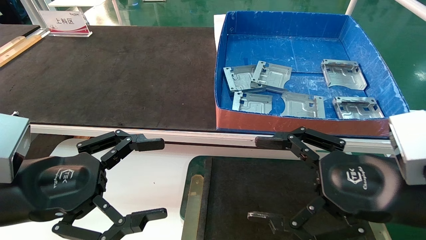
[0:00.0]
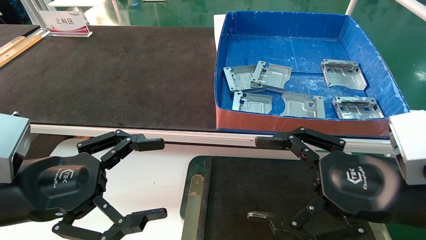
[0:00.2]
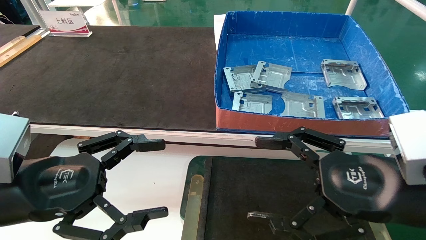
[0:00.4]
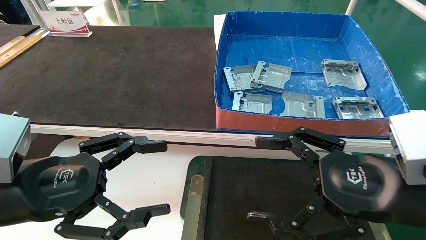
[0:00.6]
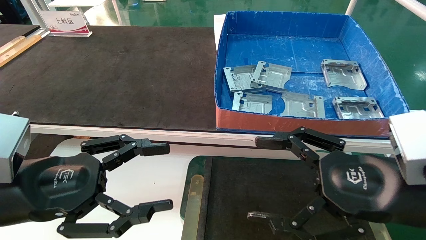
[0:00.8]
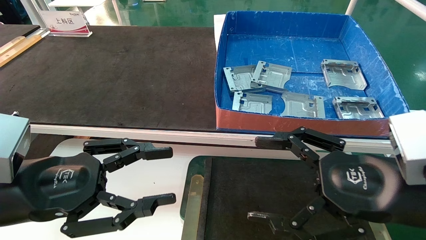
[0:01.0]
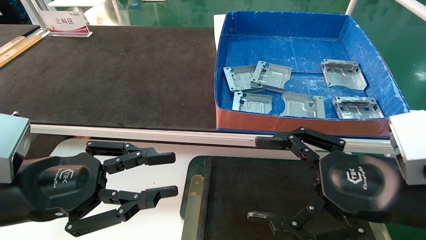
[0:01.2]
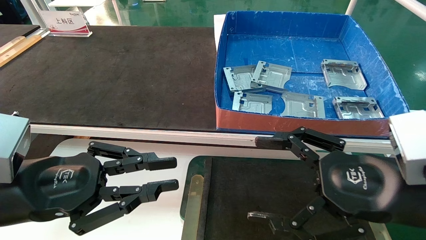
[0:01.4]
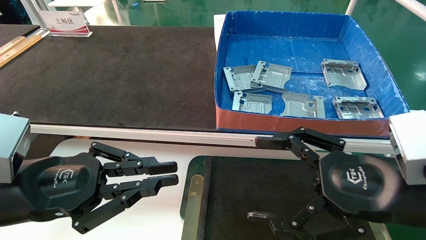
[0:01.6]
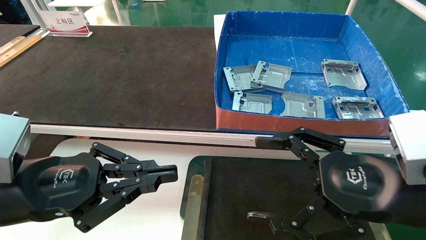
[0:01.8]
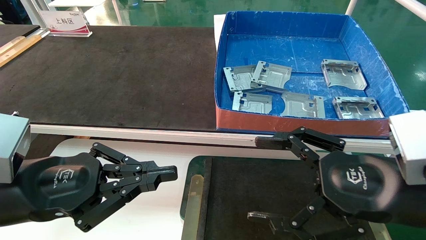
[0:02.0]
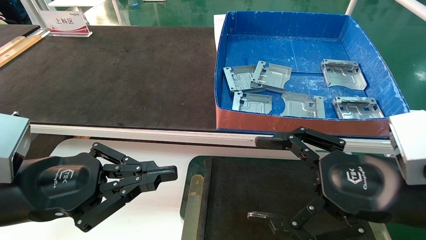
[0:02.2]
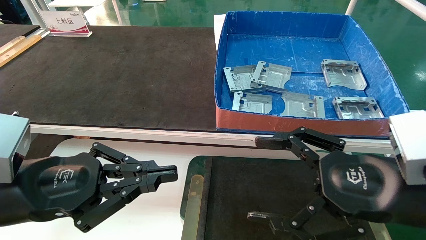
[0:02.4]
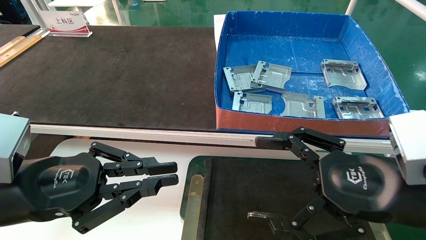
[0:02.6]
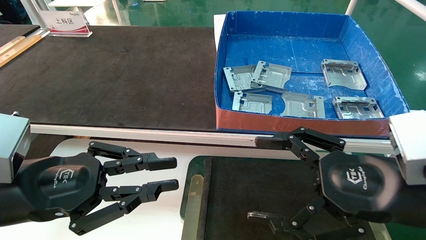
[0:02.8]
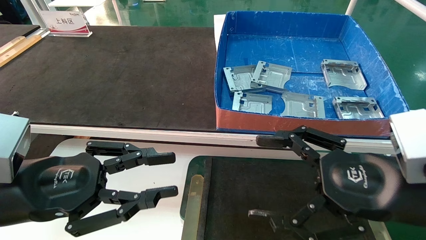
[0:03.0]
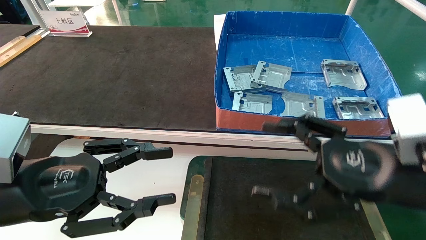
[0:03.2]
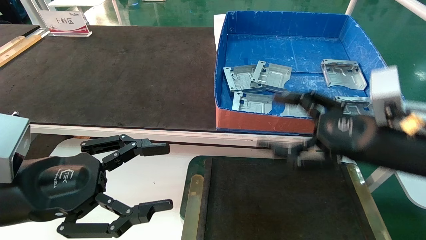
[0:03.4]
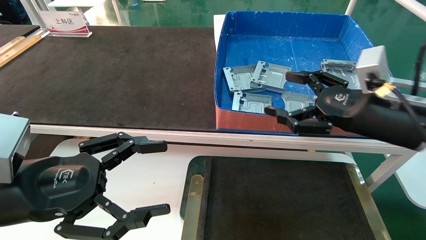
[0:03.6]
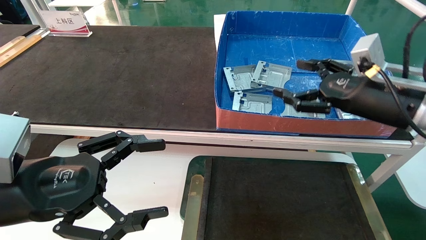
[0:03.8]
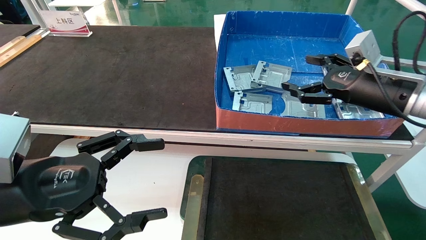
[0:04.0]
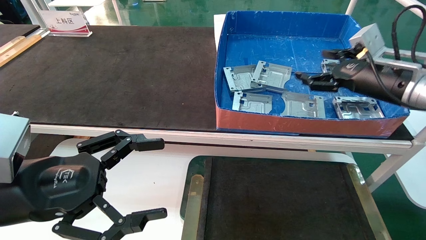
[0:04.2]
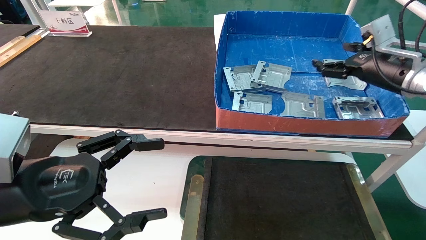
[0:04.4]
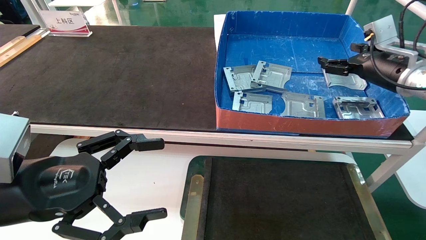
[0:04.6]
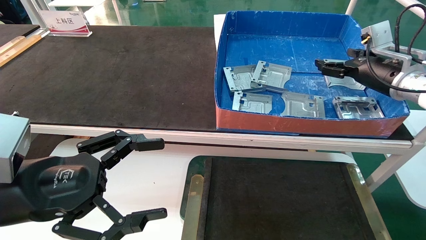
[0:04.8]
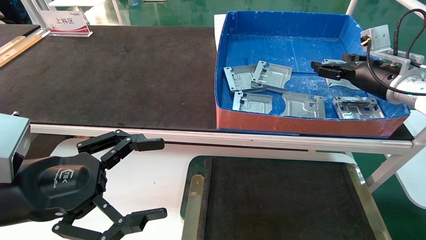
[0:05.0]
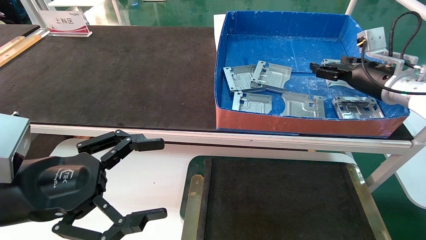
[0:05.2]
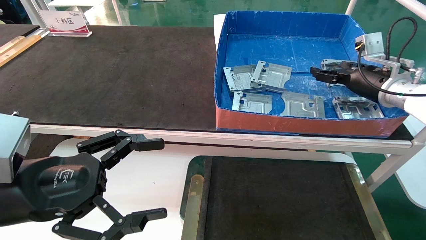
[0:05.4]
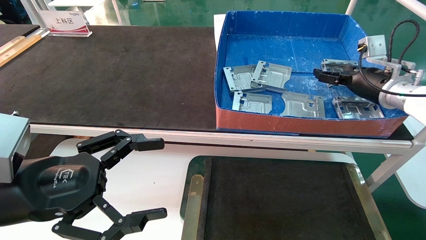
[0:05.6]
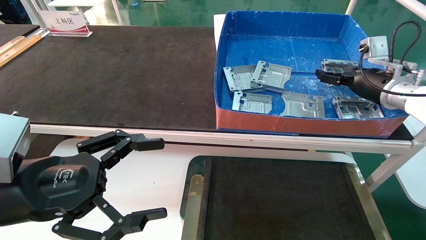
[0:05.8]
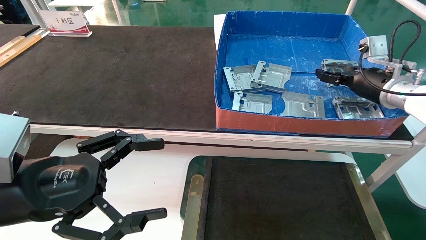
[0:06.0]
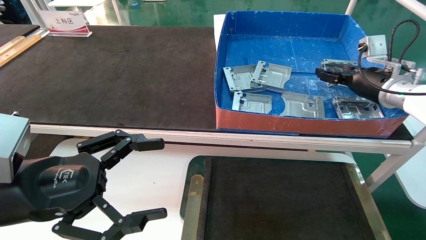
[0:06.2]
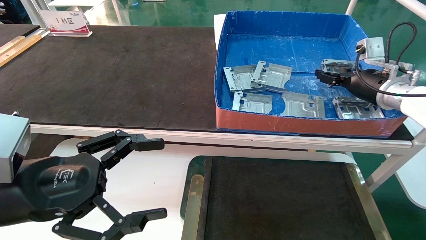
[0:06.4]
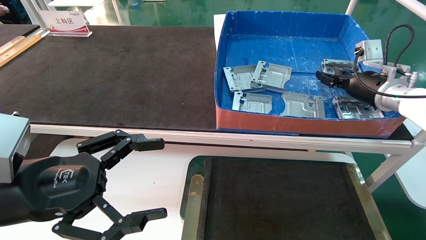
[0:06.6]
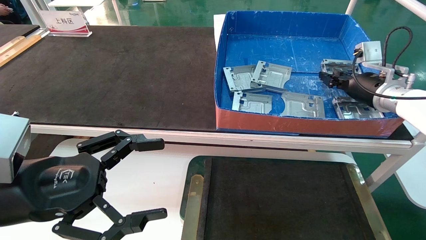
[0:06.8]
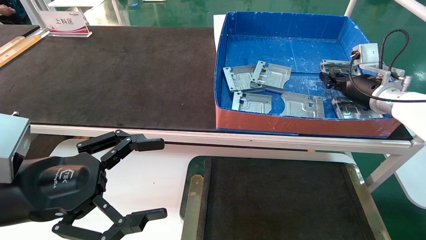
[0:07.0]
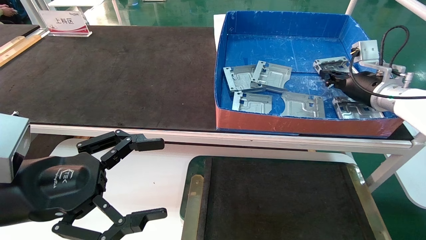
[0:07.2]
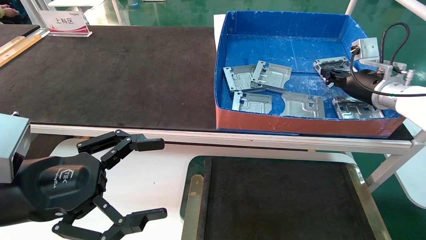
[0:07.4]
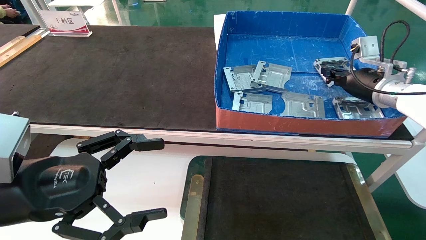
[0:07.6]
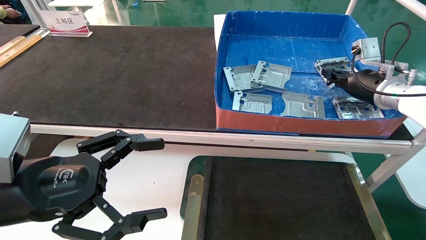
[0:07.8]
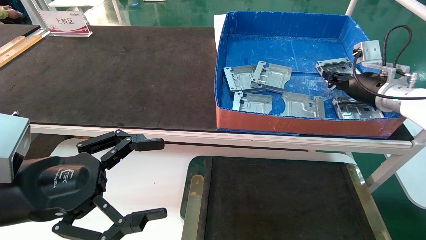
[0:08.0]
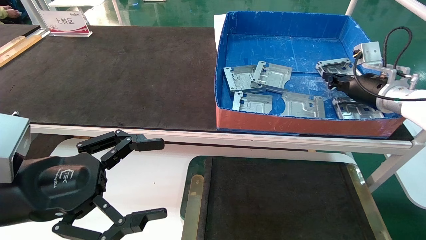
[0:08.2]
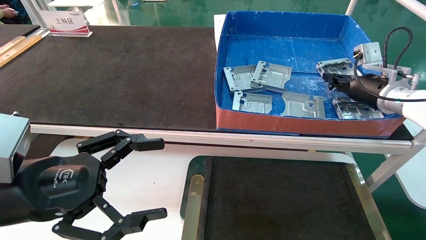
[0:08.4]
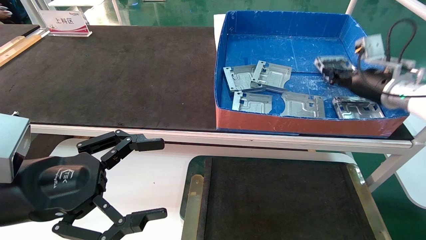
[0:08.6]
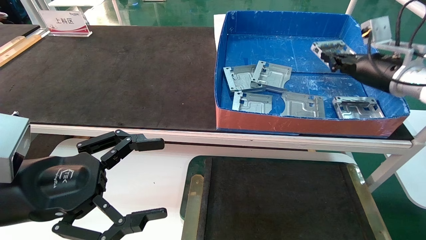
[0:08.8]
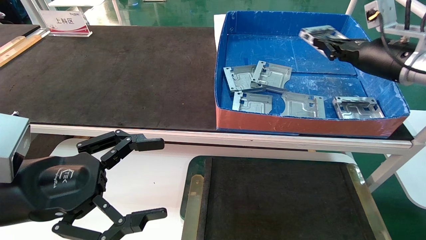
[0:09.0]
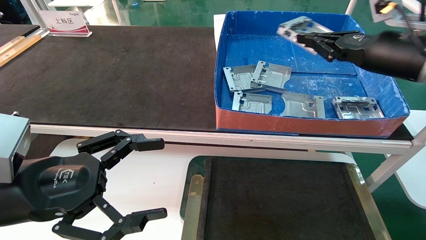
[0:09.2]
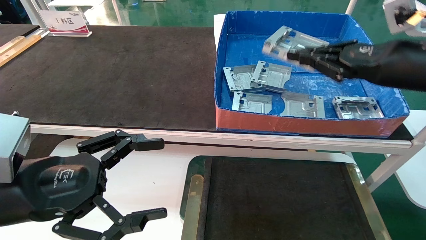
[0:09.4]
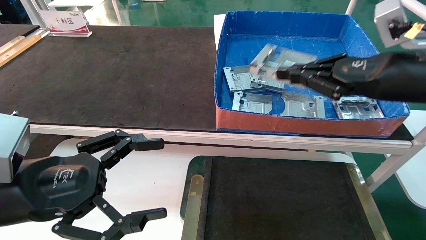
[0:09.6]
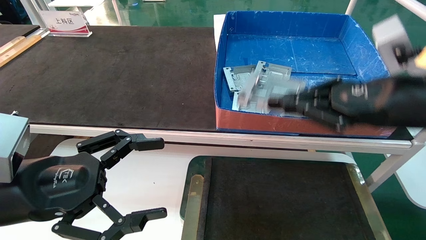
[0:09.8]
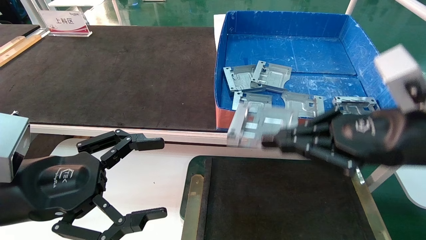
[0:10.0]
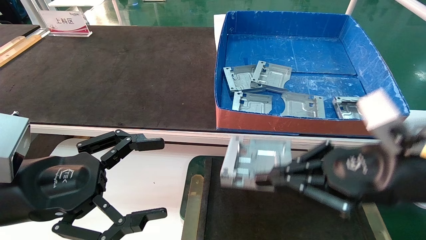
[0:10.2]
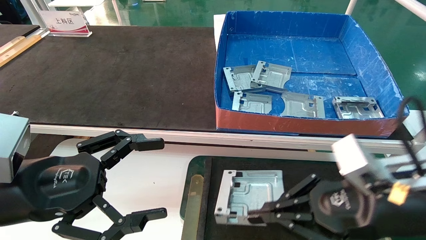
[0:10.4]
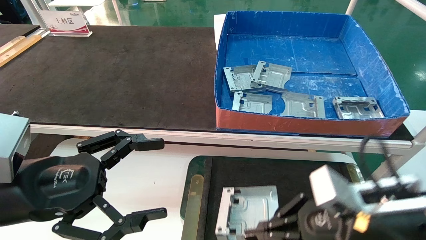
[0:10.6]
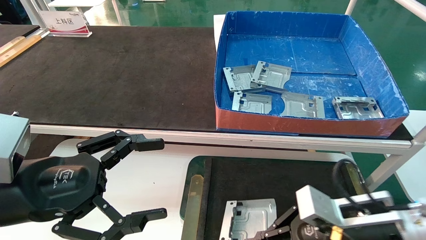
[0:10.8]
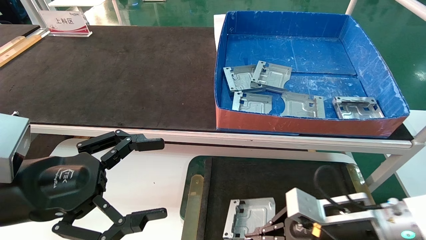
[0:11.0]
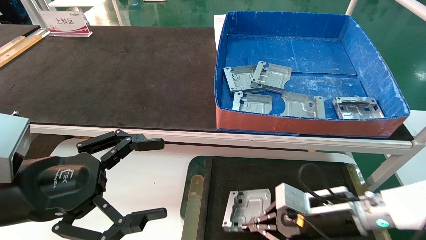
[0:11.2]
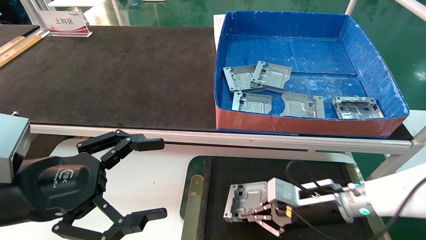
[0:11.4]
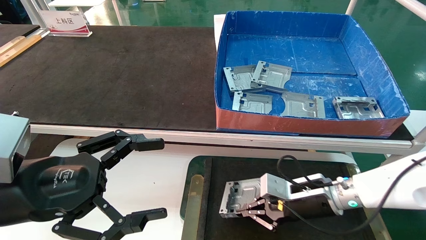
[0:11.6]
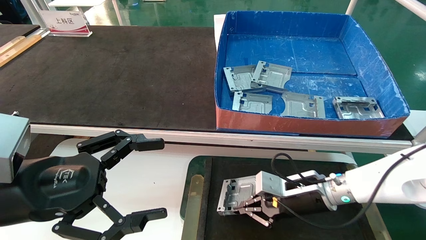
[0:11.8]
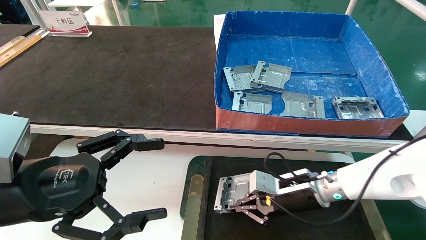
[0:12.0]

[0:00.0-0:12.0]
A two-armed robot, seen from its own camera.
Task of the whole recording: pick up parts and place them into a black container.
Step, 0:03.8 to 0:07.6: Pick up the hard drive bracket from the feeding area.
0:00.0 to 0:01.6: The left gripper closes up.
0:01.6 to 0:03.0: Neither gripper changes place.
0:03.0 to 0:04.4: The left gripper opens its fingers; the right gripper shifts roughly 25 cm forward and to the right.
0:04.4 to 0:06.0: The right gripper moves approximately 5 cm.
0:06.0 to 0:07.6: The right gripper closes its fingers.
0:07.6 to 0:09.0: The right gripper heads upward and backward, covering some 10 cm.
0:09.0 to 0:10.4: The right gripper moves backward, downward and to the left, roughly 25 cm.
0:10.4 to 0:12.0: The right gripper is displaced forward and downward by some 20 cm.

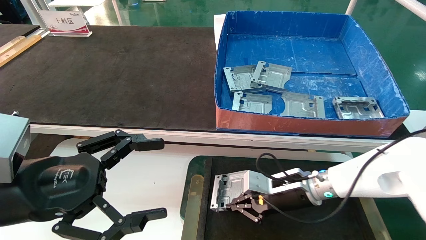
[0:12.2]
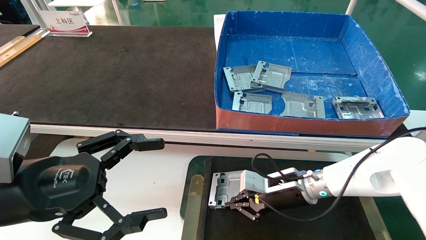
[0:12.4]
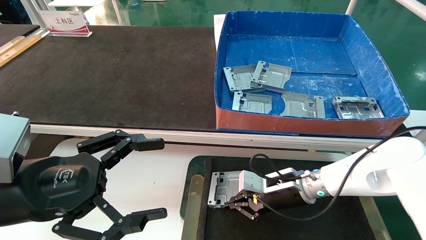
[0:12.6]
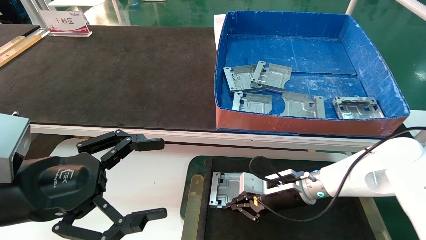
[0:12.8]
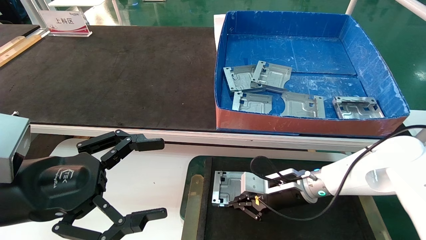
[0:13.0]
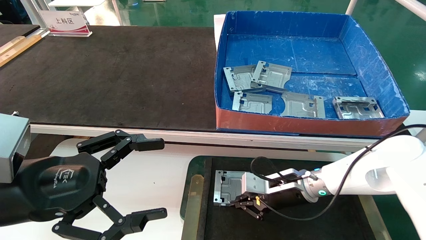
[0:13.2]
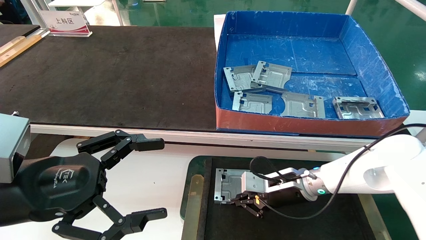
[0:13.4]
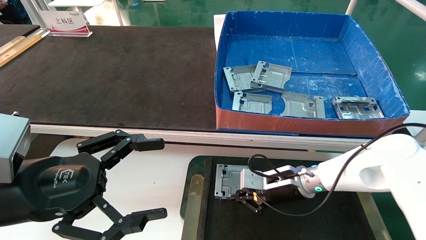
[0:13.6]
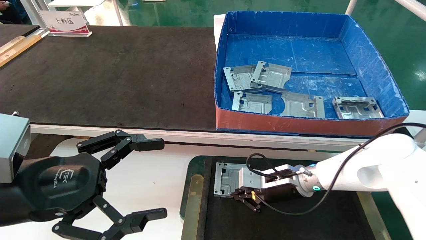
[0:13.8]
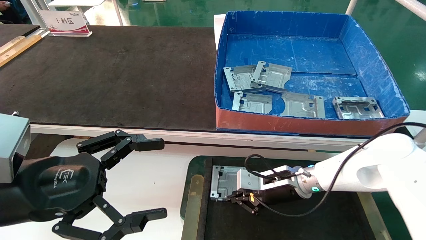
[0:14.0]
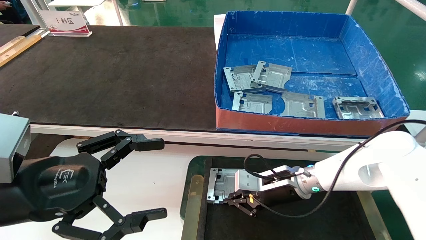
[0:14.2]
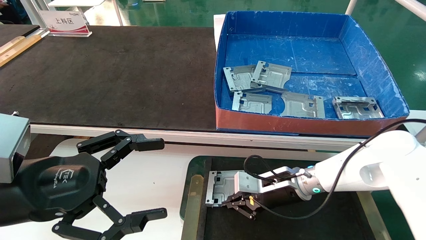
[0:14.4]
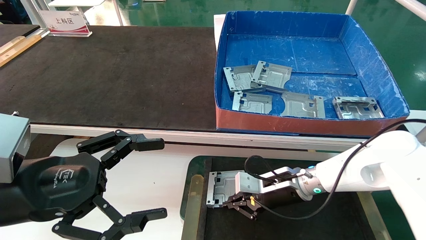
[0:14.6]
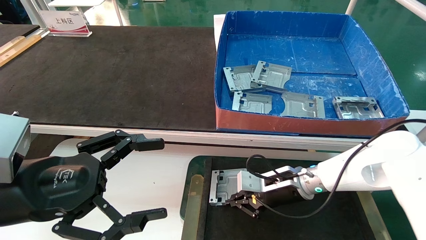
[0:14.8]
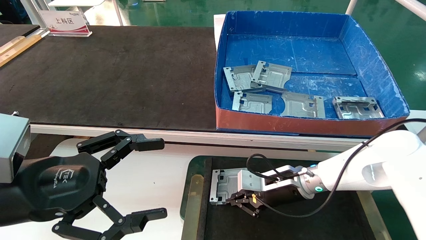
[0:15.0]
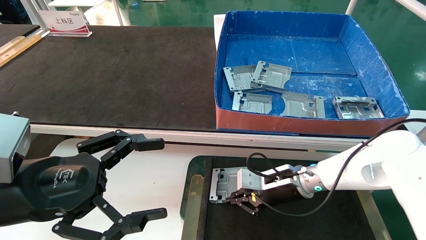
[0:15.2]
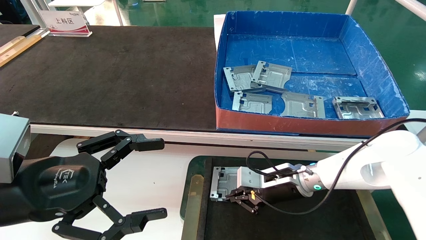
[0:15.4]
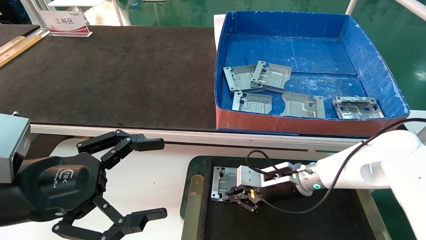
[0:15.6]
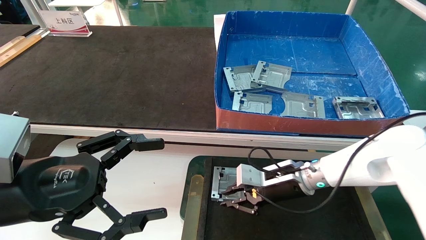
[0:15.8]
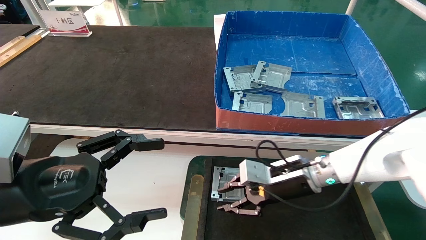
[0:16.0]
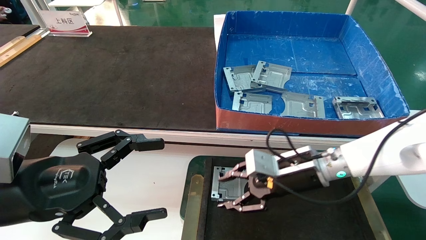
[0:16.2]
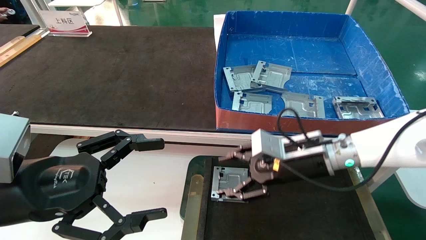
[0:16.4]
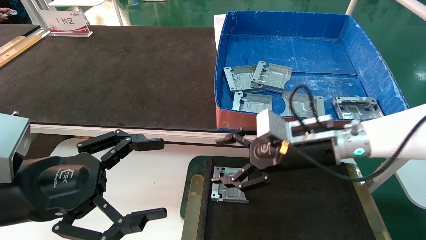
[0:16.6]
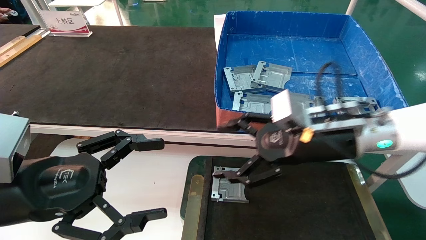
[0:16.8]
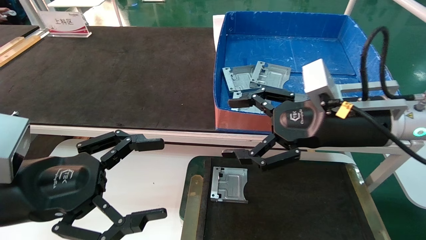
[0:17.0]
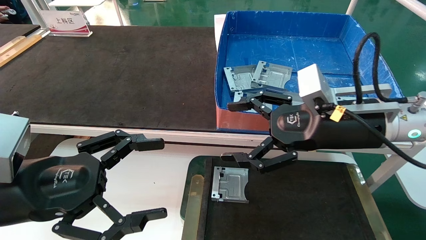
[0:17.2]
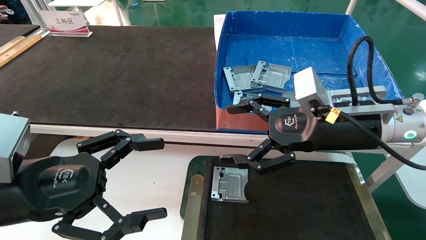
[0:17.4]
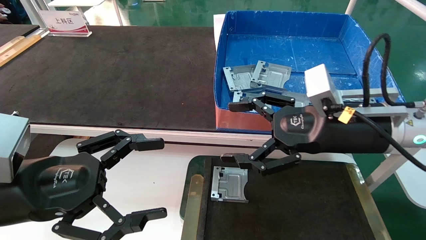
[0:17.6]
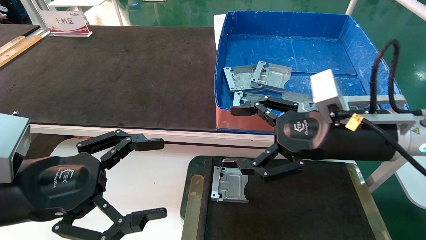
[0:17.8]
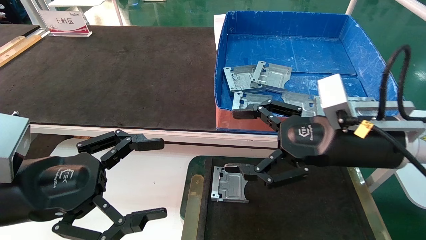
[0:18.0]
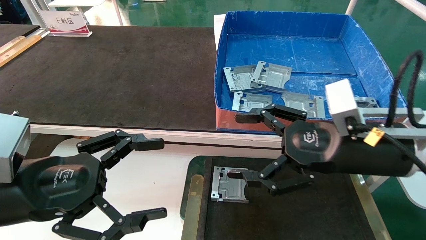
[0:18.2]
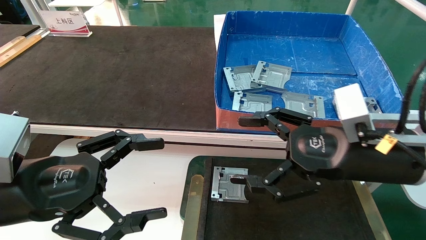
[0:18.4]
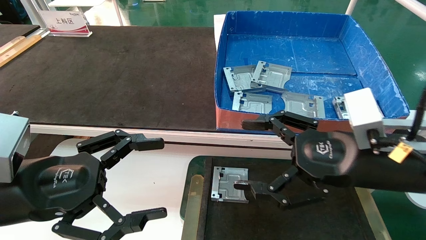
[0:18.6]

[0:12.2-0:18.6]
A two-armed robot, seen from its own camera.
Task of the whole recording: pick up parts and place them into a black container.
Step, 0:12.2 to 0:15.8: Place the hard drive bracket into the box.
0:12.2 to 0:15.4: The grippers move only a little.
0:15.4 to 0:17.0: The right gripper shifts some 20 cm upward and backward, and opens.
0:17.0 to 0:18.6: The right gripper is displaced backward by roughly 5 cm.
